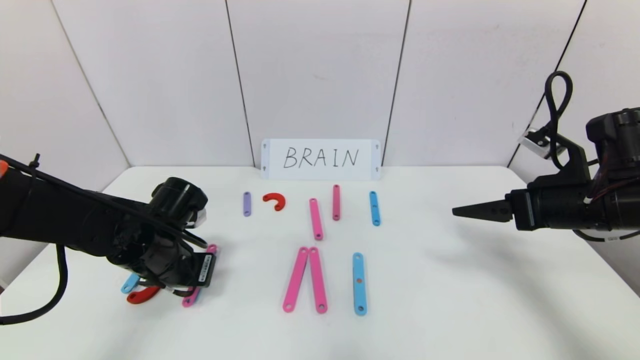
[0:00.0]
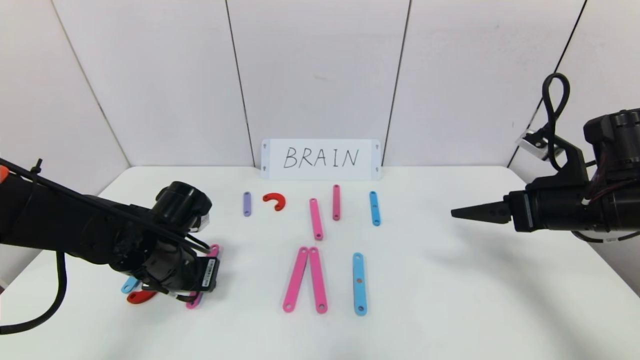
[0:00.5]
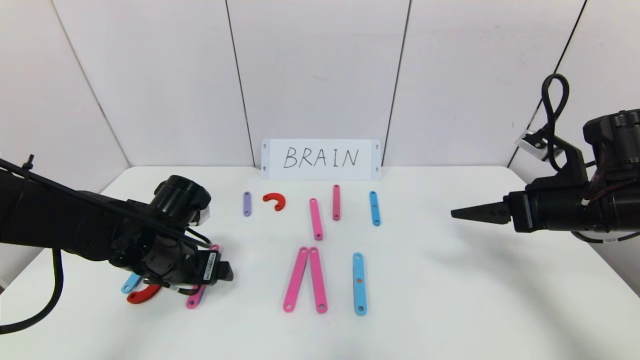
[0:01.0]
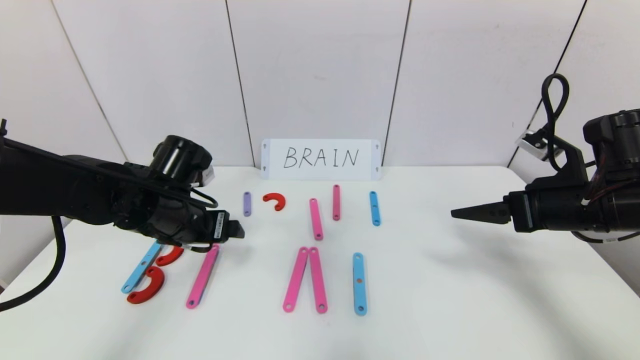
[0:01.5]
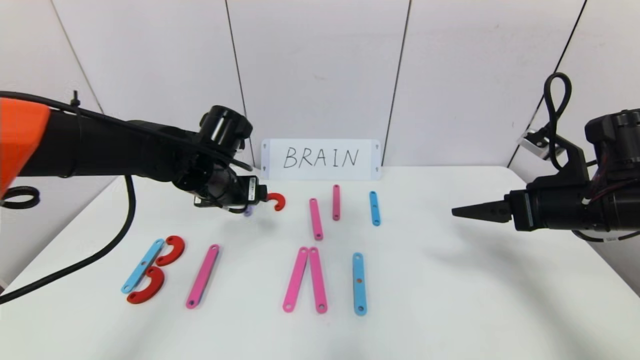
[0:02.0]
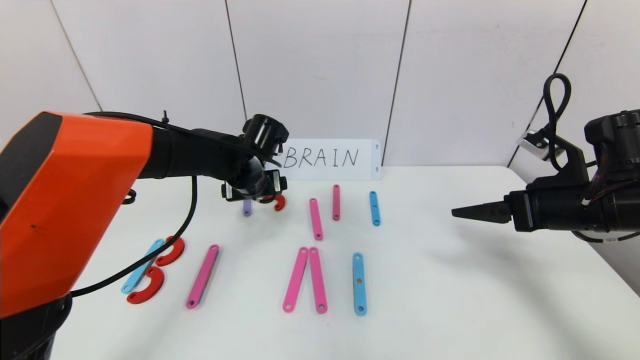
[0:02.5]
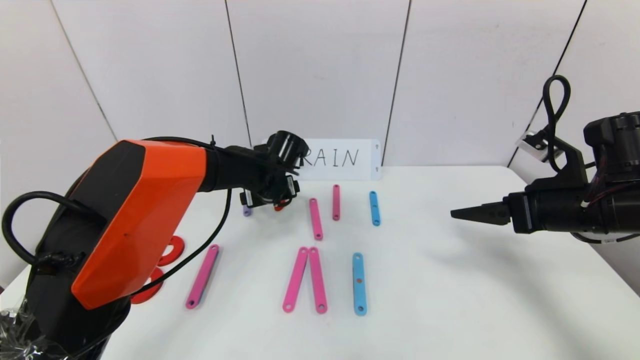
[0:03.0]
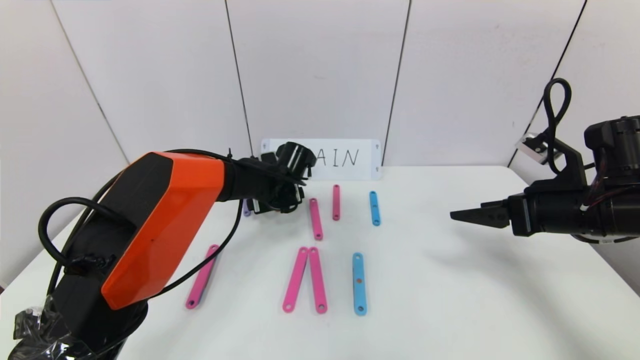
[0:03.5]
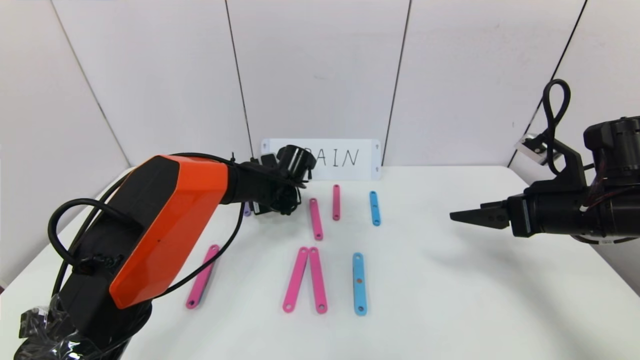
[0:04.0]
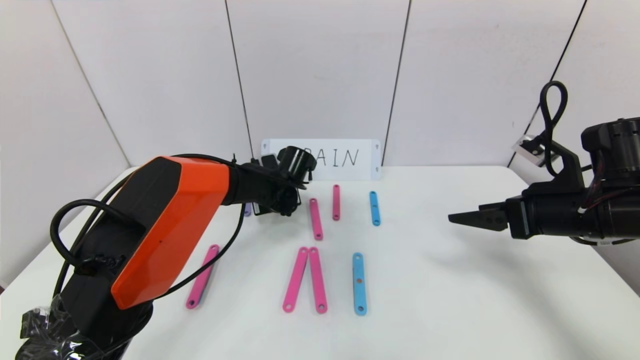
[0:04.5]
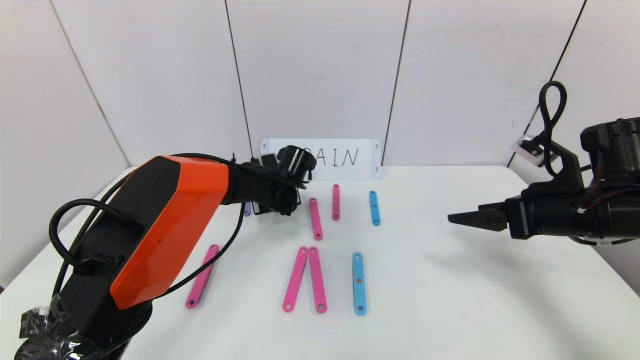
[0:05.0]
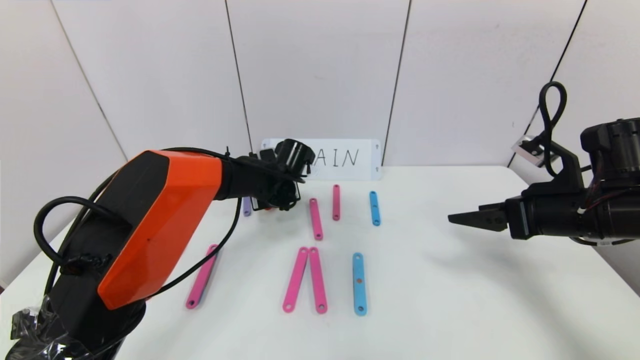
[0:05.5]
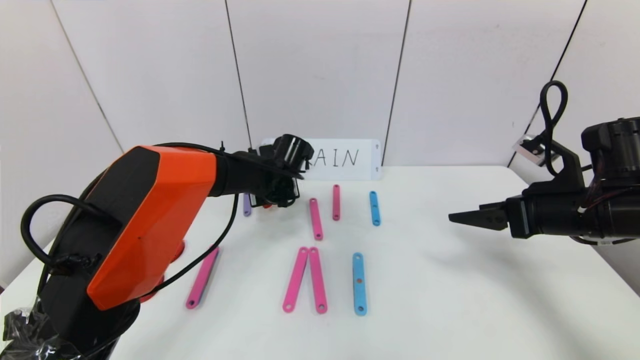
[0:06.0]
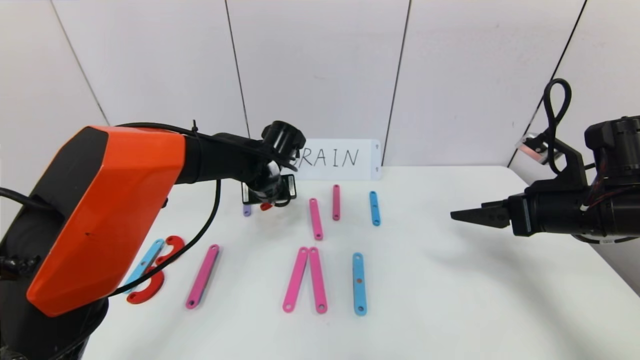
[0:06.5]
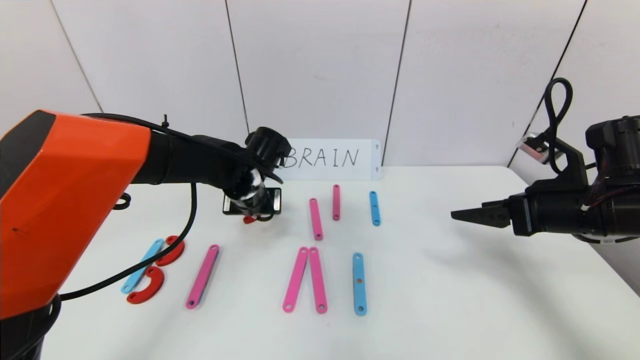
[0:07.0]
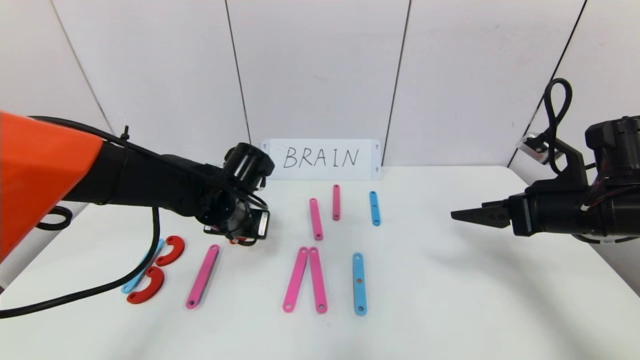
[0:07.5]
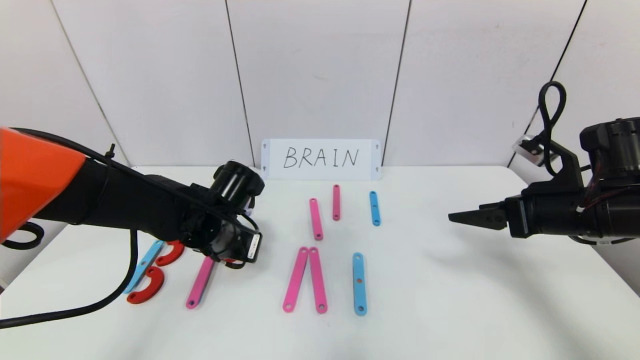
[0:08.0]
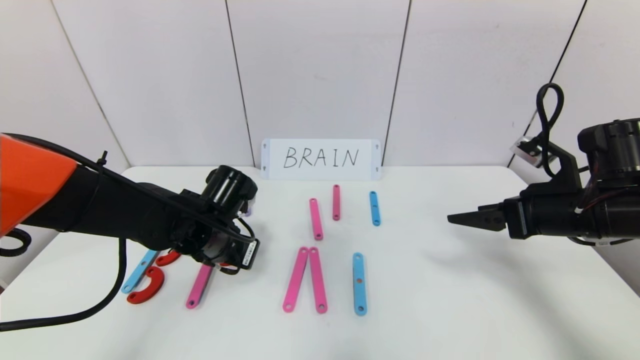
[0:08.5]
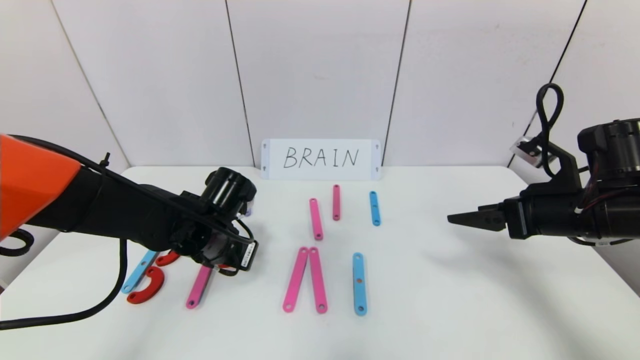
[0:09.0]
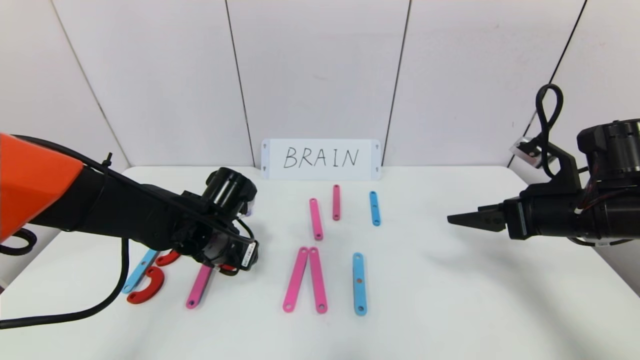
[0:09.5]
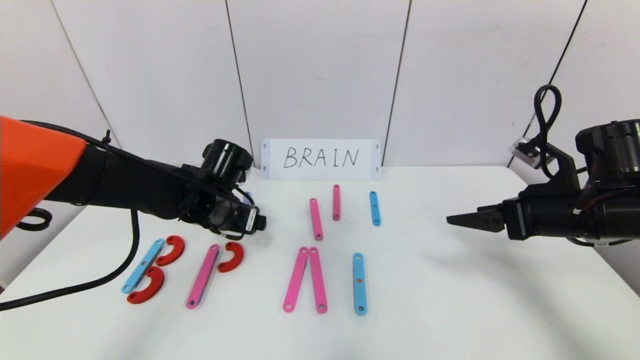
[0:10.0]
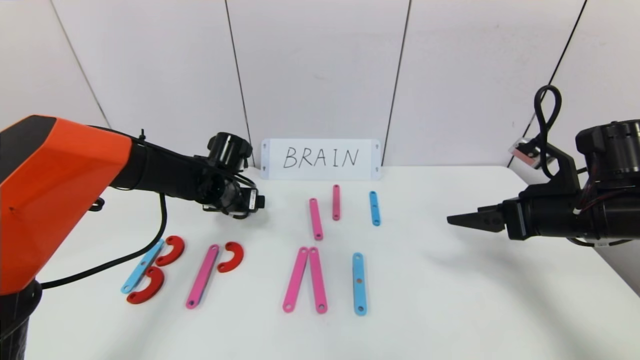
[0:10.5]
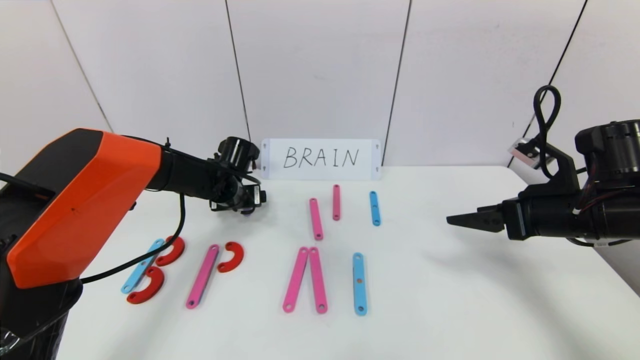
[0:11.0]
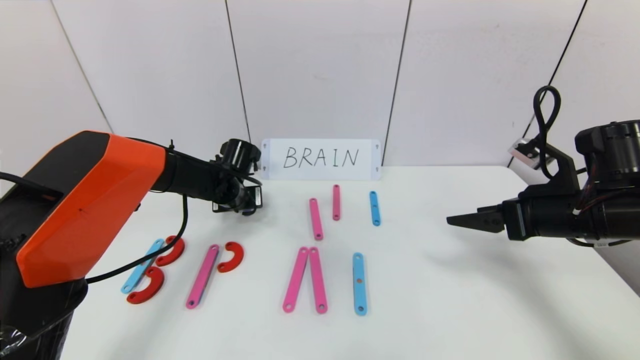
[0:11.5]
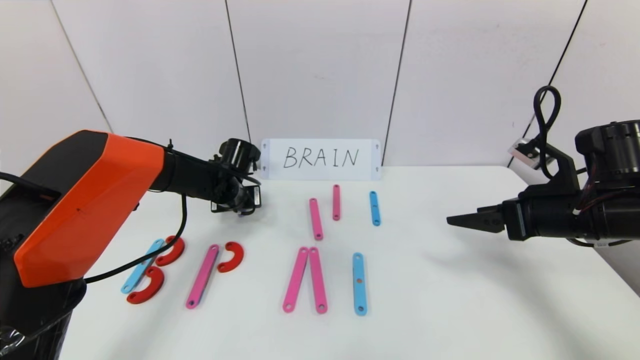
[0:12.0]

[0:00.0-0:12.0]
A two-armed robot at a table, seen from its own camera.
Task of the whole recording: rearrange the word baai as brain.
0:00.0 to 0:02.0: The left gripper moves upward, forward and to the right, roughly 15 cm, and opens its fingers.
0:02.0 to 0:04.0: The left gripper moves downward, forward and to the right, roughly 15 cm.
0:04.0 to 0:06.0: The left gripper closes up.
0:06.0 to 0:08.0: The left gripper travels backward and to the left by roughly 15 cm.
0:08.0 to 0:10.0: The left gripper opens.
0:10.0 to 0:12.0: The left gripper heads forward, covering some 10 cm, and closes.

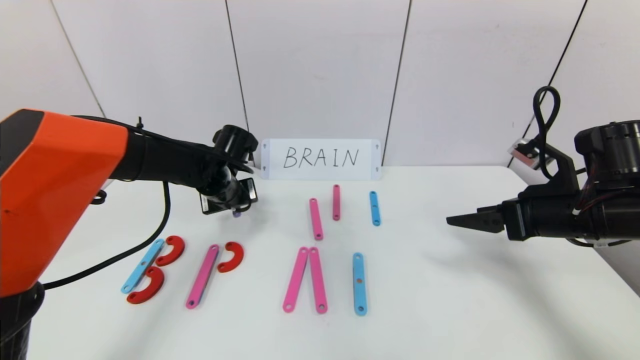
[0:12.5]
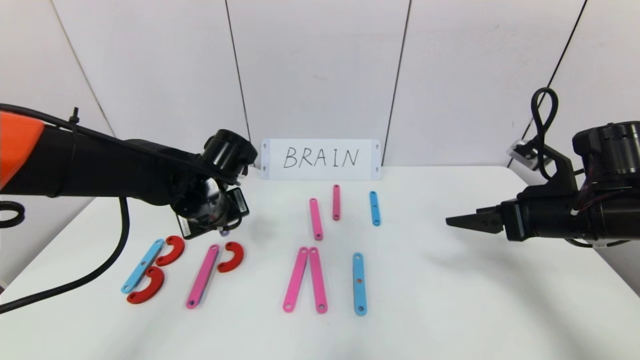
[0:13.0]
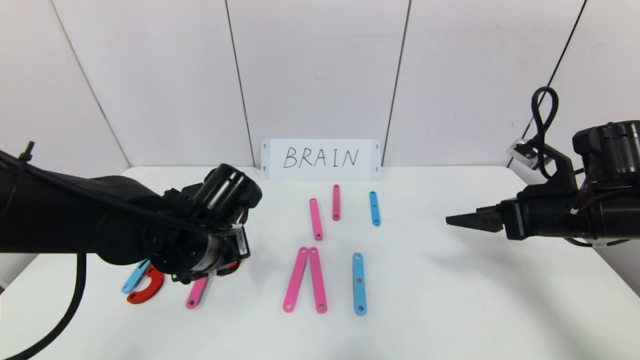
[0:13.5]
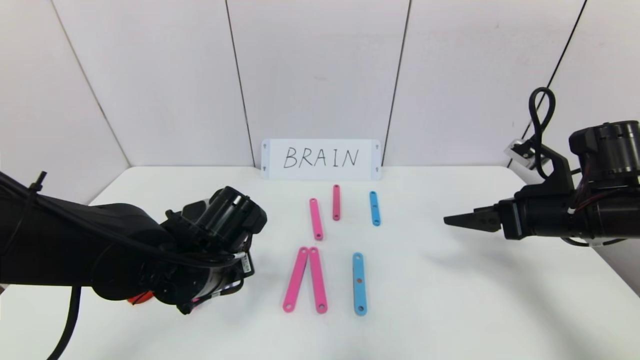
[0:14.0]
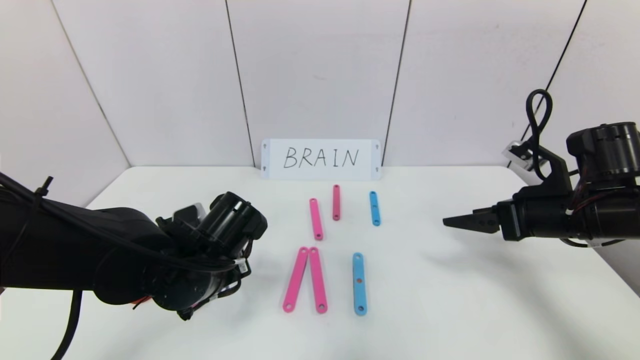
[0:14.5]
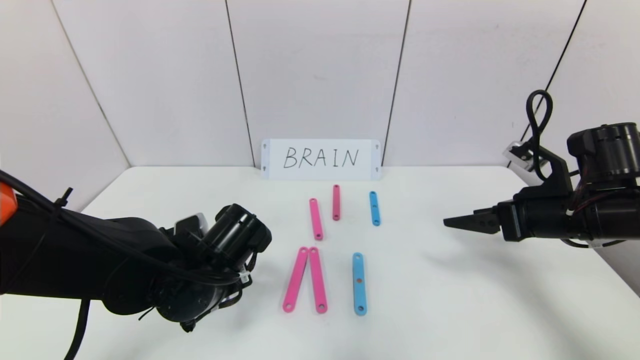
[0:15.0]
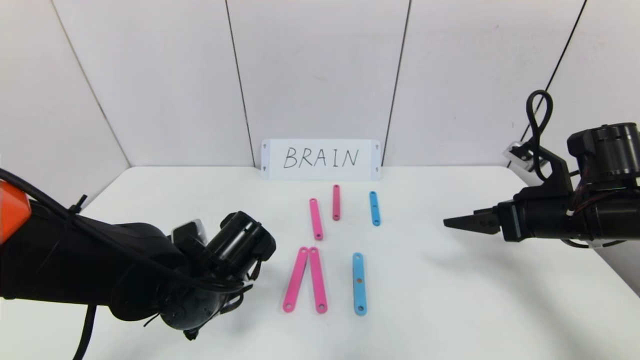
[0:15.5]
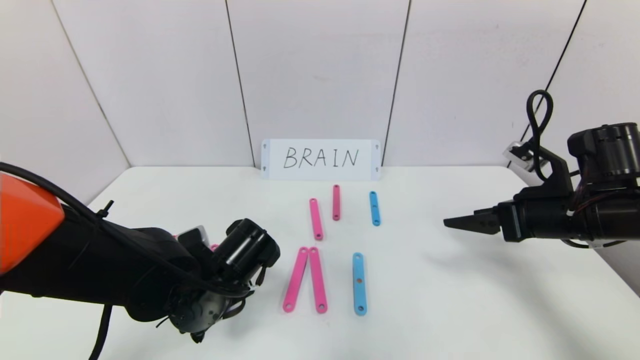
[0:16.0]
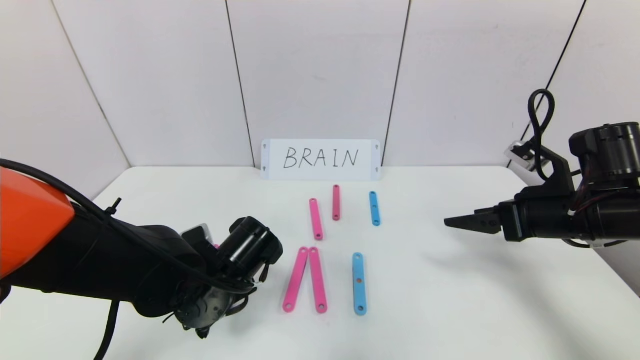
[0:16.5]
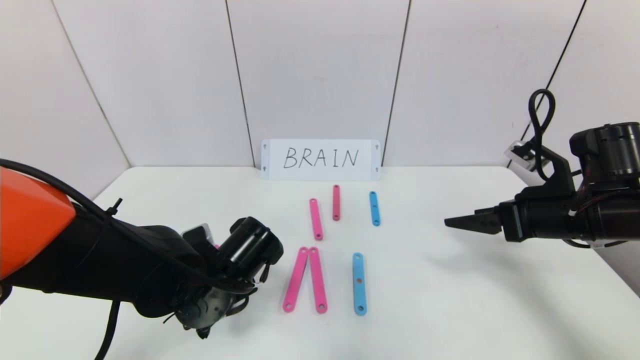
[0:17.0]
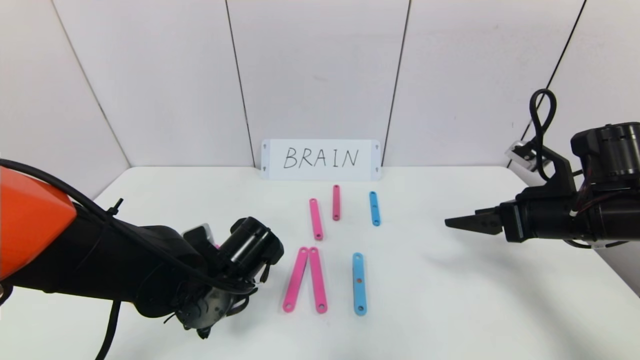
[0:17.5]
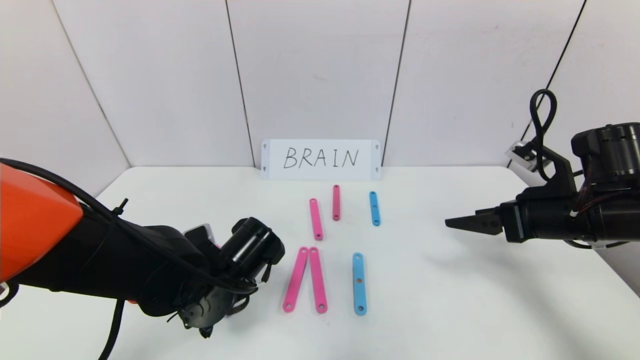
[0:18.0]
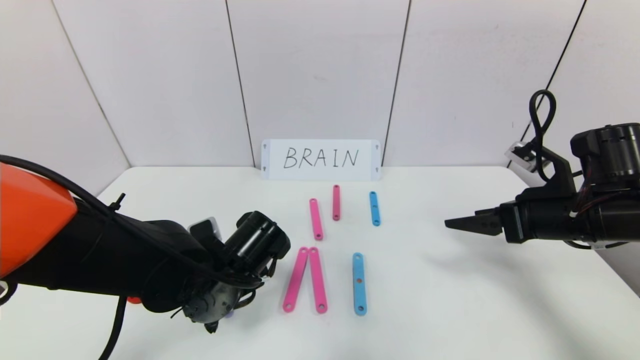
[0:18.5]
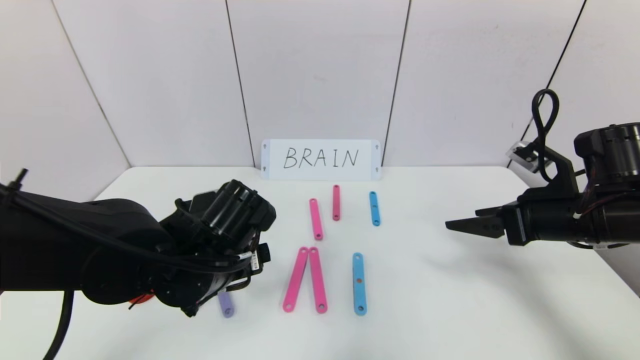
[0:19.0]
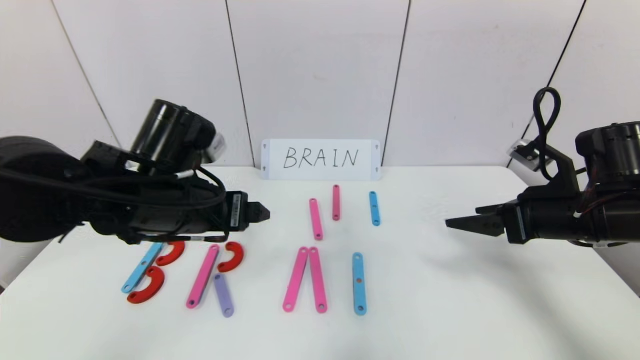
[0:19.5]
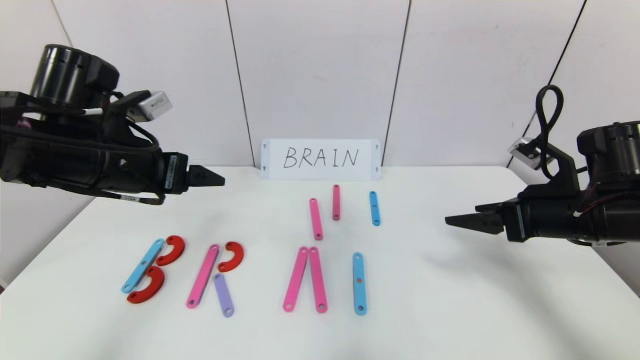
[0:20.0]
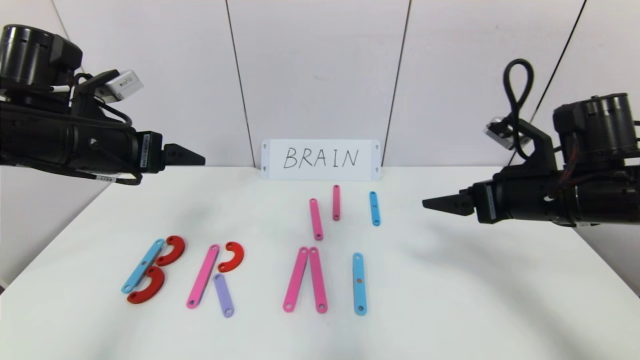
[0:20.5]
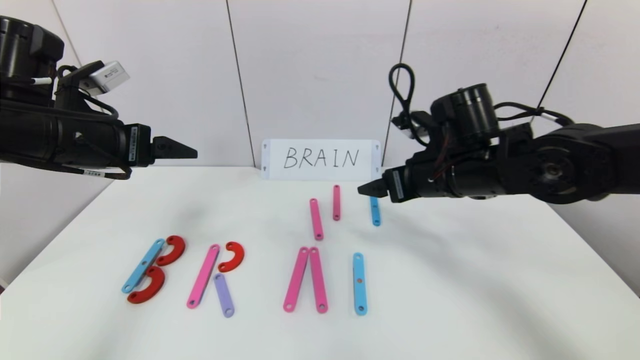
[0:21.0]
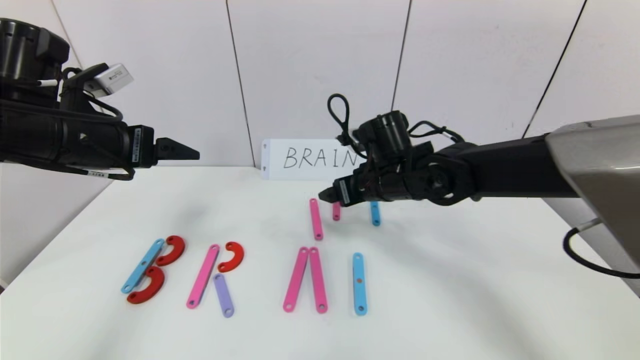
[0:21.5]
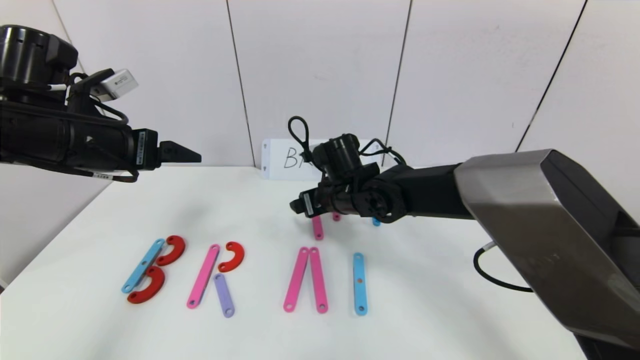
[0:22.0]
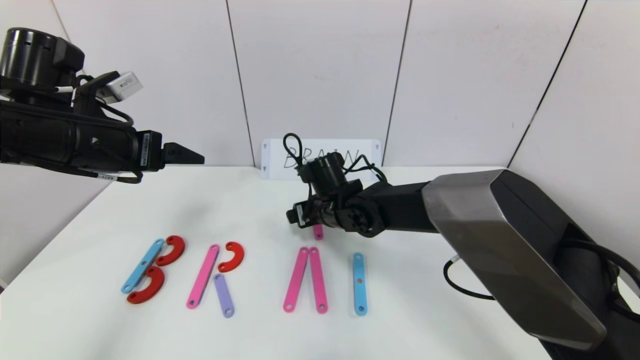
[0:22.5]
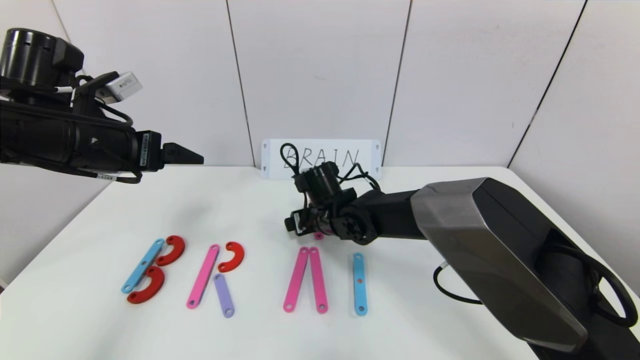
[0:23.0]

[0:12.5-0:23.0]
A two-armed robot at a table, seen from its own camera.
Task of the whole recording: rearrange the word baai as brain.
Step, 0:12.5 to 0:18.0: Place the character R between first character B and third character A.
0:12.5 to 0:14.5: The left gripper travels backward by approximately 15 cm.
0:14.5 to 0:16.5: The grippers make only small movements.
0:16.5 to 0:19.0: The left gripper shifts some 5 cm upward, and opens up.
0:19.0 to 0:21.0: The left gripper shifts some 20 cm to the left and upward, while the right gripper is displaced to the left and forward by roughly 15 cm.
0:21.0 to 0:23.0: The right gripper heads to the left, downward and forward, covering some 20 cm.
